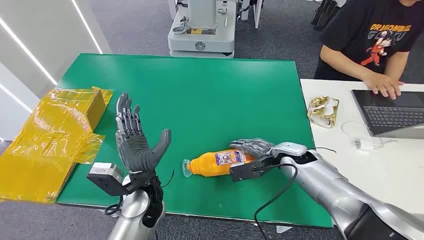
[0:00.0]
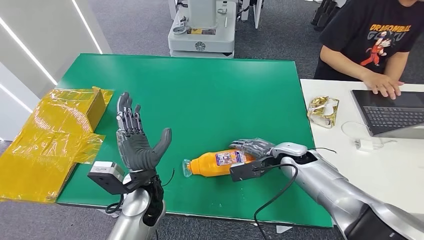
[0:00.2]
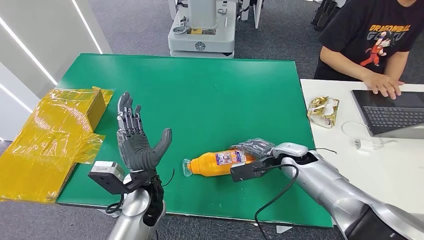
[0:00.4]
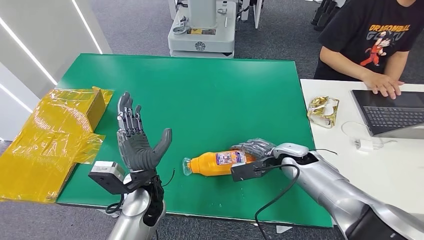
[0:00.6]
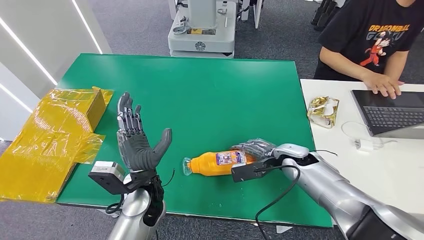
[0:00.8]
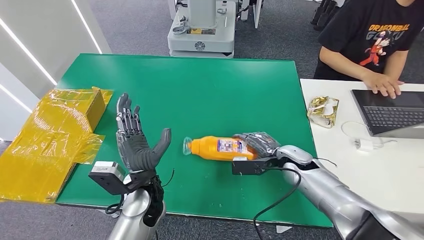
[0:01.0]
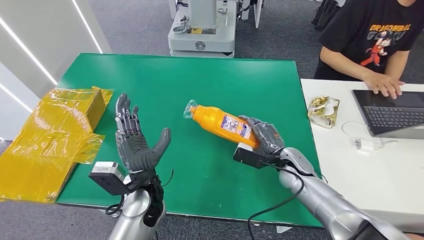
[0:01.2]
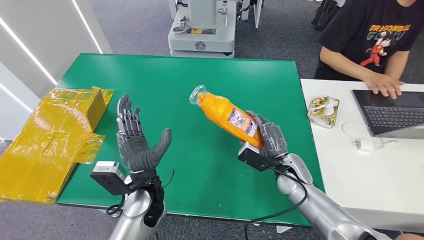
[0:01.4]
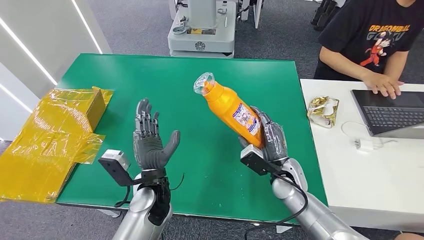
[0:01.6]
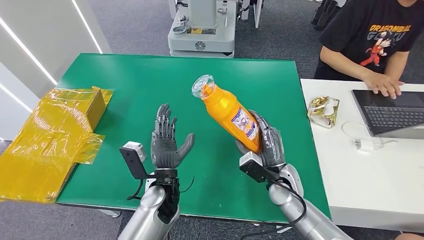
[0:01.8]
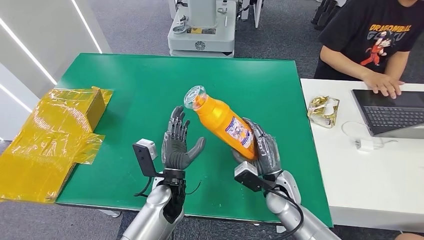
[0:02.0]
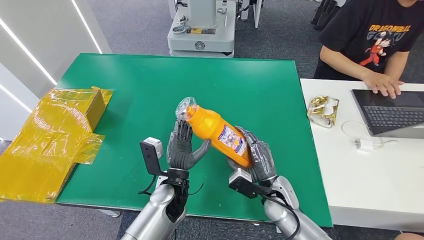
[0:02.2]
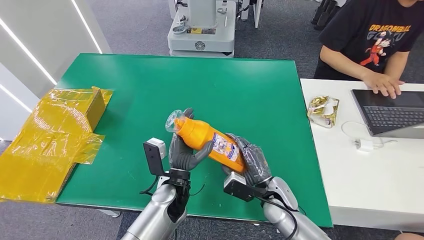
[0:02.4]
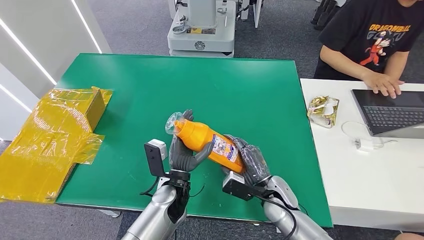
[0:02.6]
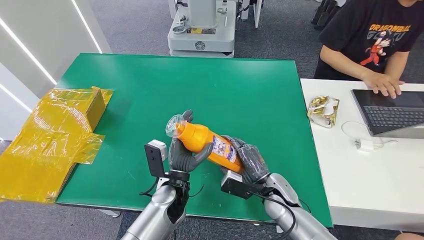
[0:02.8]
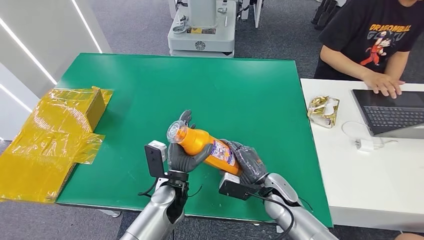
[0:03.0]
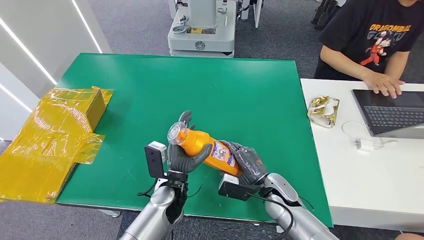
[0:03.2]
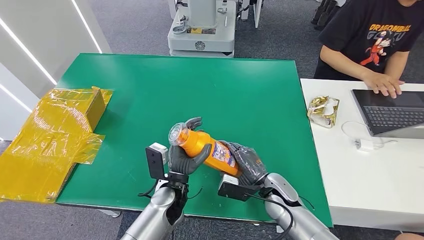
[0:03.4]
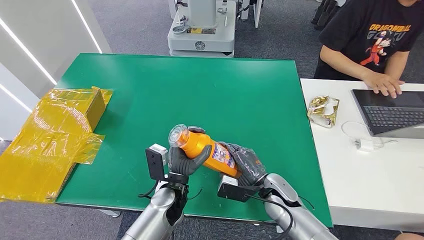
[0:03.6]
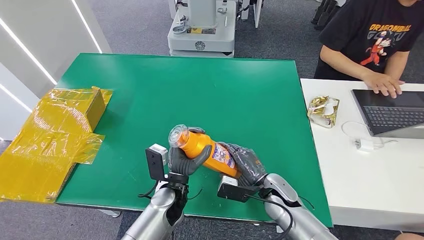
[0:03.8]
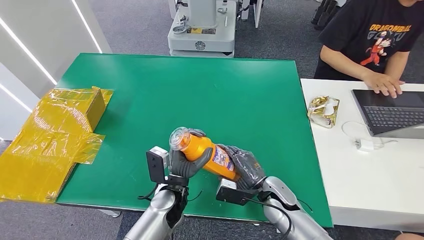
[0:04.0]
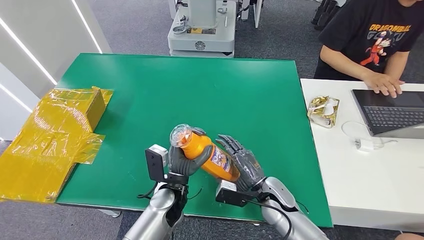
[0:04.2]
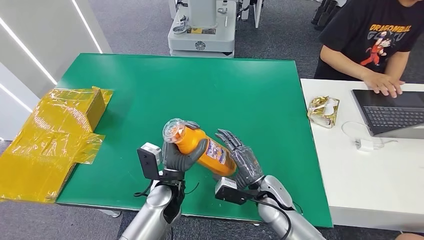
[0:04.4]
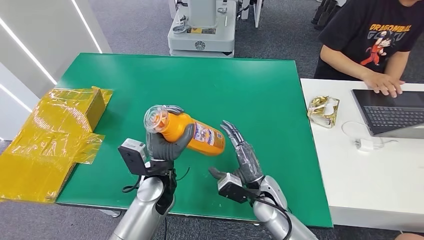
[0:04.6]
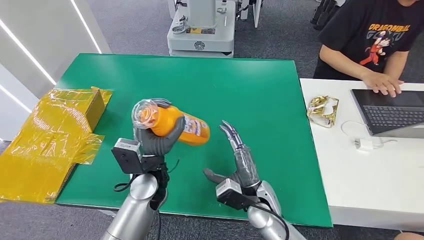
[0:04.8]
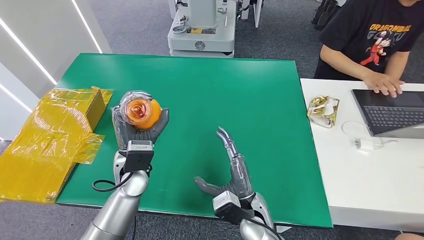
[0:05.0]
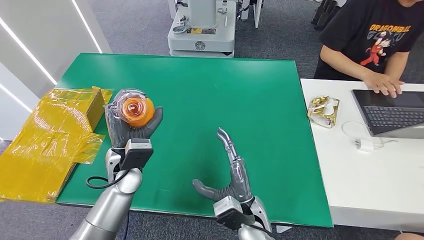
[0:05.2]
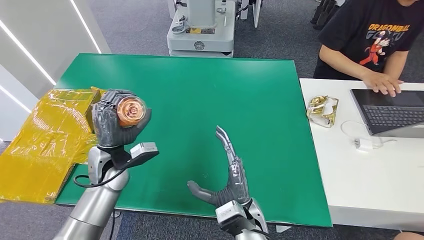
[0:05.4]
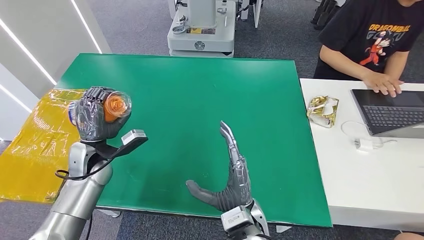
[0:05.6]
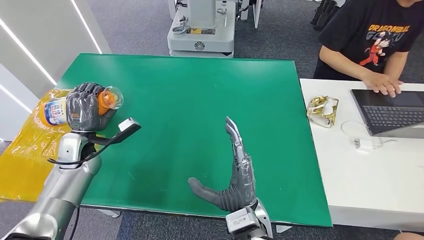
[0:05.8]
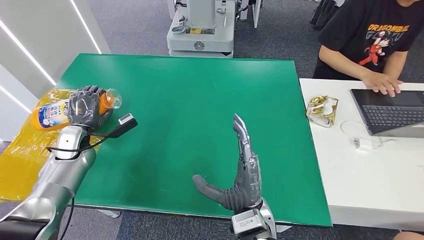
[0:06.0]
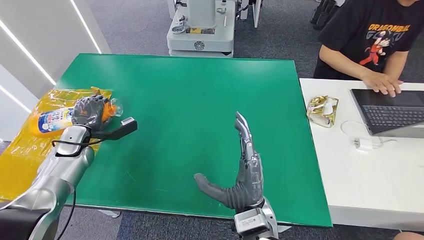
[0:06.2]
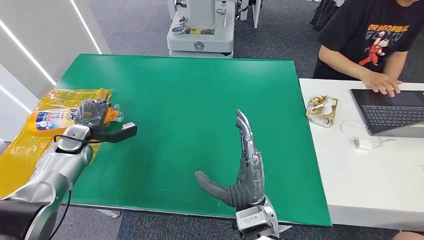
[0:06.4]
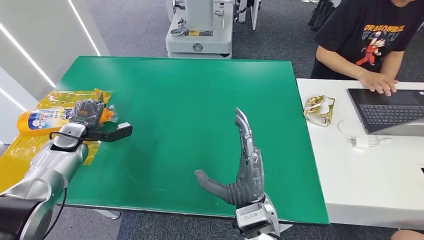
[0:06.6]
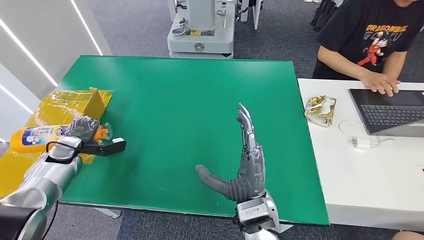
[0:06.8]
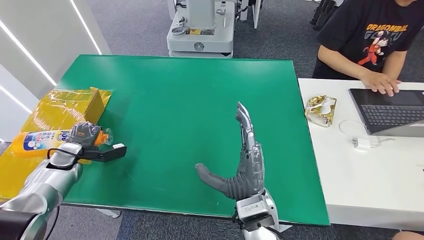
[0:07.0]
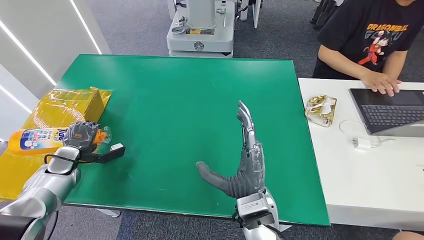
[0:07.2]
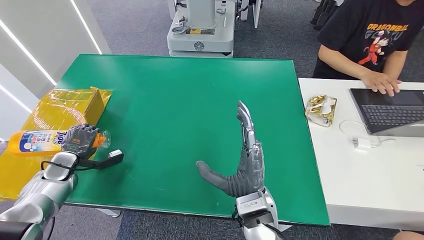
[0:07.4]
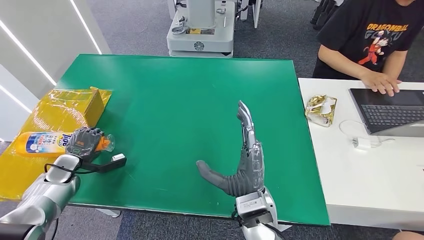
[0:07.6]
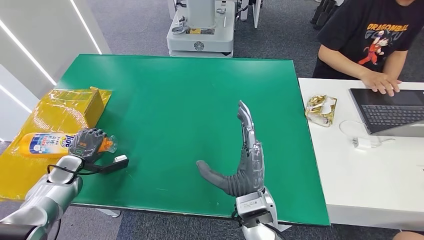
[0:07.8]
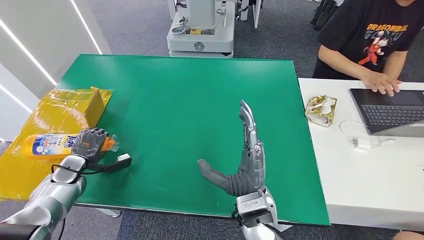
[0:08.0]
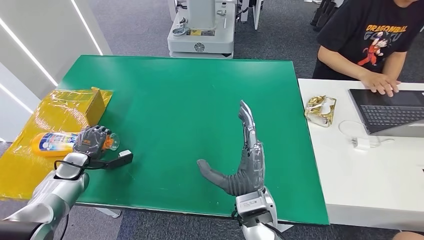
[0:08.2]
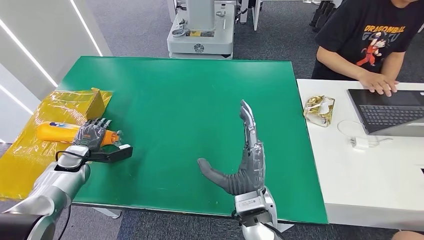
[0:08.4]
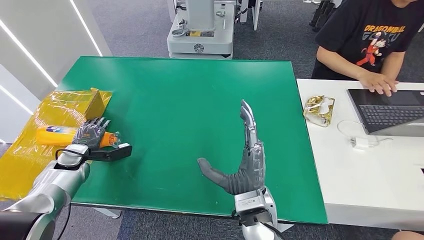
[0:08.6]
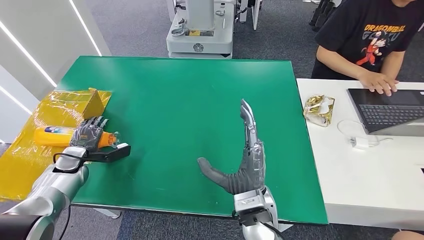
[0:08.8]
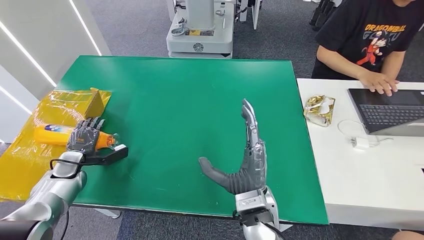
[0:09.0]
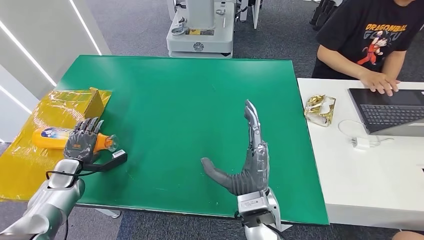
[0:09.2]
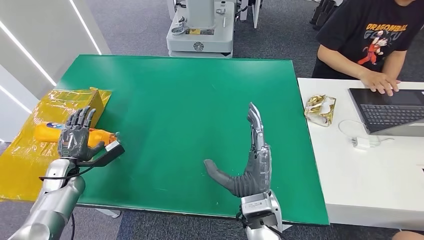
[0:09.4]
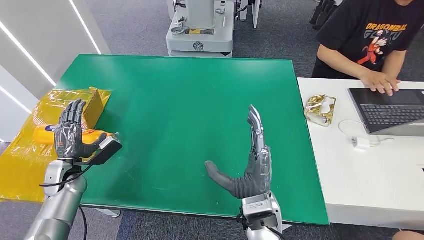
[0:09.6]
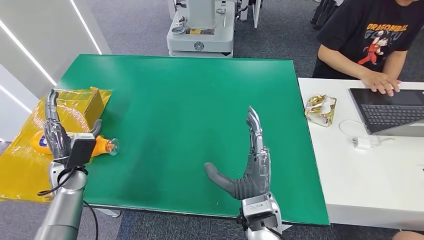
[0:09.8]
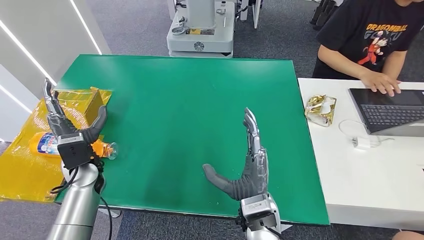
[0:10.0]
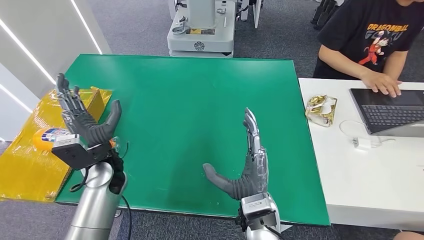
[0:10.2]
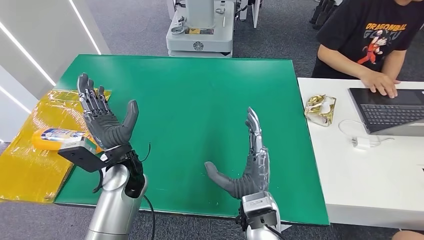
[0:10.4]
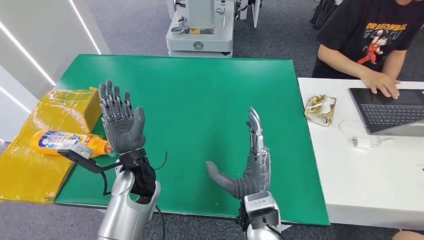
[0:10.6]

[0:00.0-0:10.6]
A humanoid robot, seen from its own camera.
Step, 0:00.0 to 0:02.6: Pick up the bottle from the table.
Step, 0:02.8 to 0:10.6: Turn the bottle to the front side.
0:01.6 to 0:03.0: The left hand changes place by approximately 5 cm; the right hand moves some 5 cm.
0:03.0 to 0:04.6: The left hand travels upward by some 5 cm.
0:06.0 to 0:07.6: The left hand shifts approximately 10 cm downward, to the left and backward.
0:07.6 to 0:09.0: There are only small adjustments of the hands.
0:09.0 to 0:10.6: The left hand is displaced to the right and upward by roughly 30 cm.
